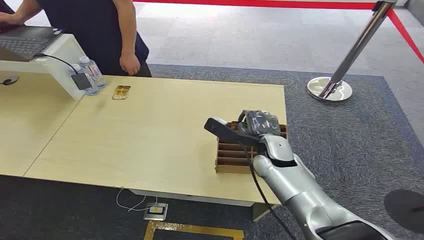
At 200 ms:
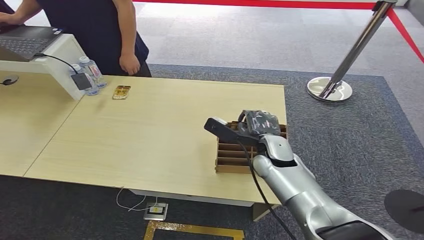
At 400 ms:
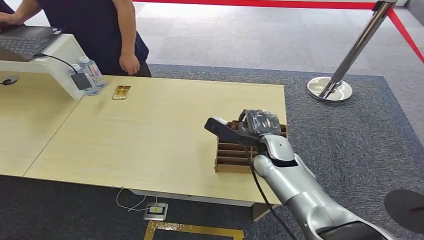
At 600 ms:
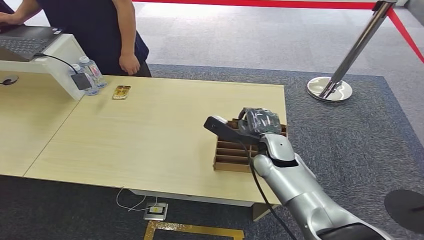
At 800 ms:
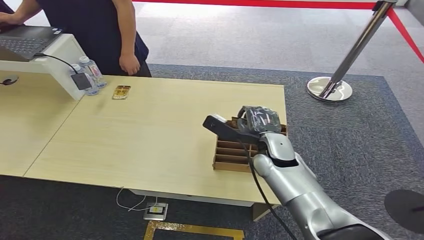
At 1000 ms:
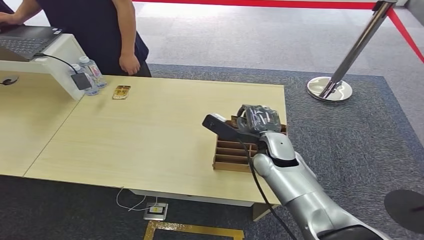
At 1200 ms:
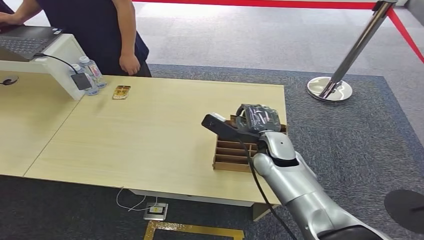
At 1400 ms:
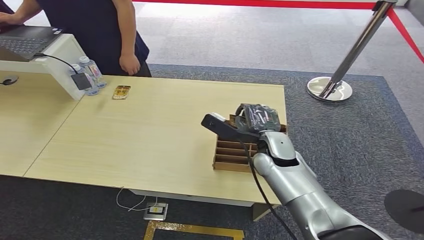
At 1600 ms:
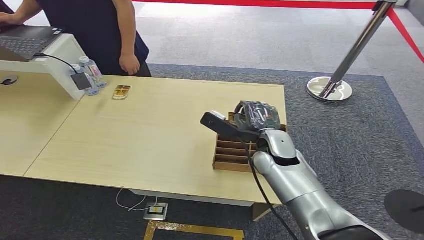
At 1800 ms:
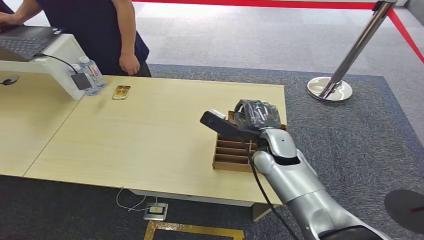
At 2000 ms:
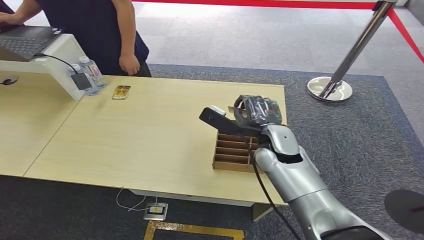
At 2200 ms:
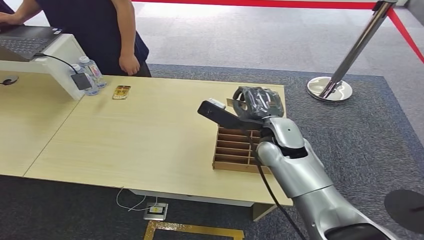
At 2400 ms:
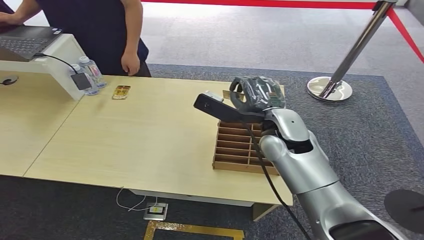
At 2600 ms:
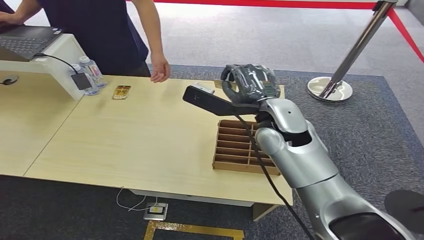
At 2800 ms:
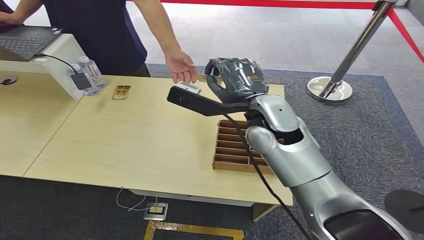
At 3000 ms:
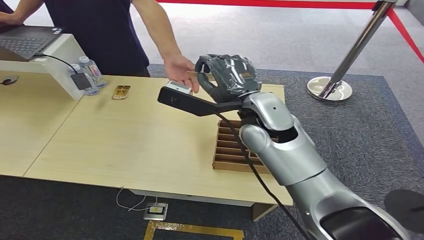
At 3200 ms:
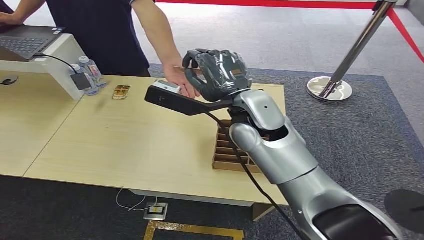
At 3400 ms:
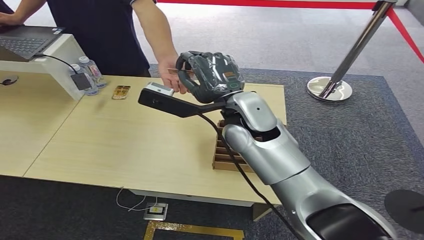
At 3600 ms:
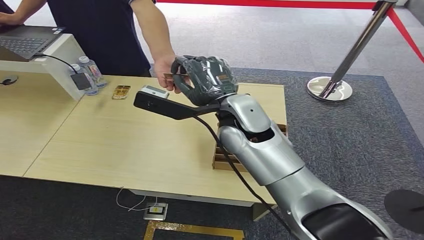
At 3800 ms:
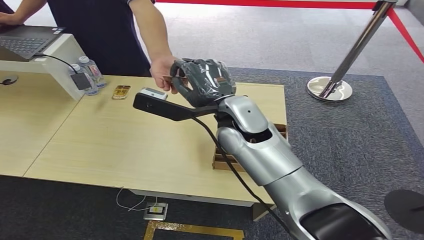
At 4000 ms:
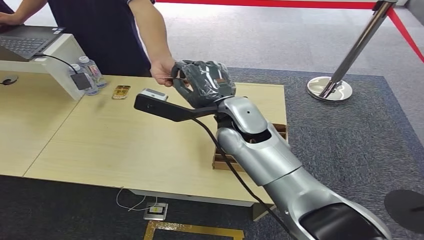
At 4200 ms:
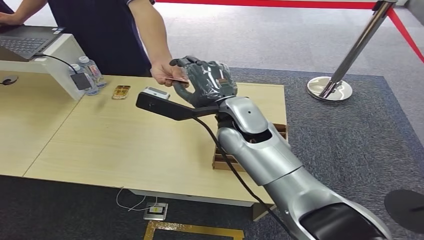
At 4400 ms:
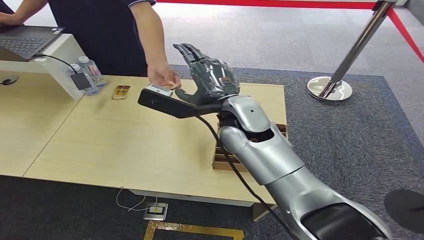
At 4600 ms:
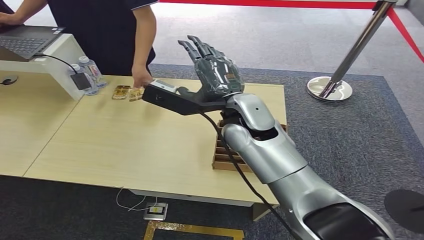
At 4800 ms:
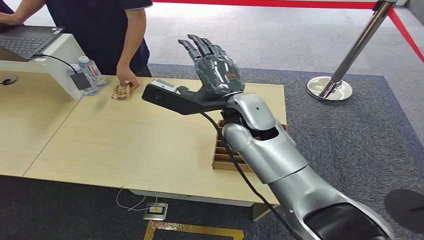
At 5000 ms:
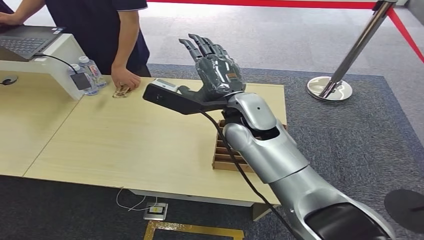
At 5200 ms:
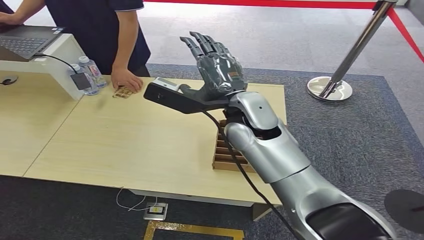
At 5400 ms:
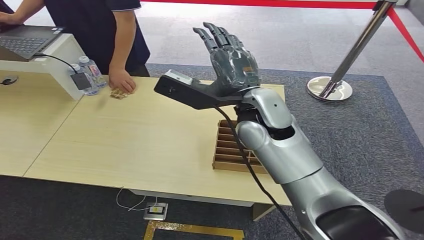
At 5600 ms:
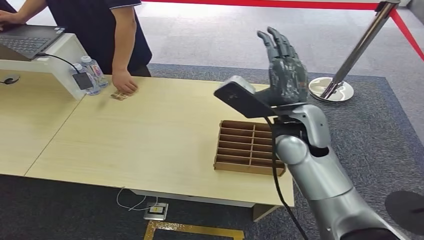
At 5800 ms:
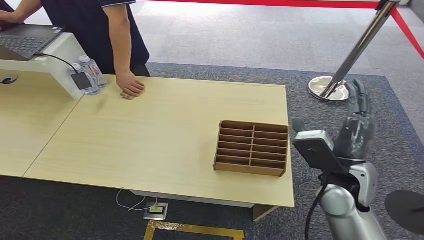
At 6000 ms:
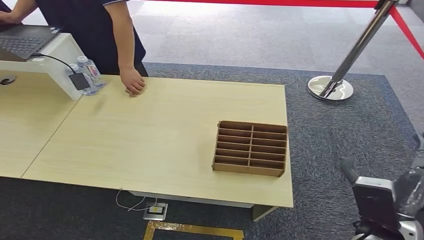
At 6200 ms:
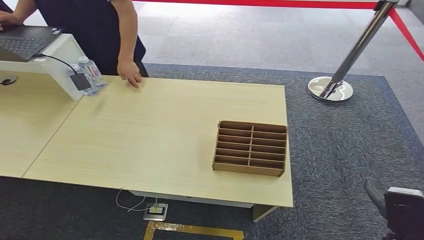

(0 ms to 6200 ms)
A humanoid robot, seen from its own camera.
Step, 0 ms - 2000 ms: Pick up the room card from the card holder.
Step, 2200 ms - 6200 ms: Hand the room card to the target.
1600 ms - 3200 ms: The right hand heads upward and to the left, covering about 15 cm.
3200 ms - 4600 ms: The hands move only a little.

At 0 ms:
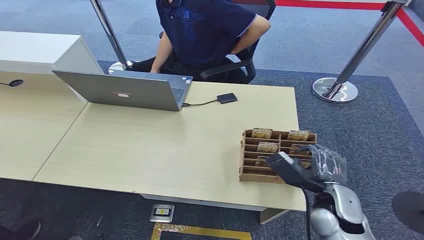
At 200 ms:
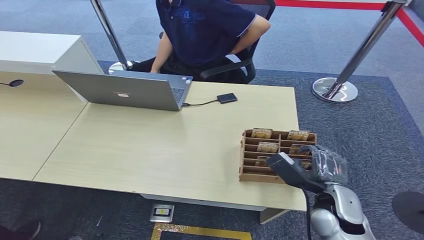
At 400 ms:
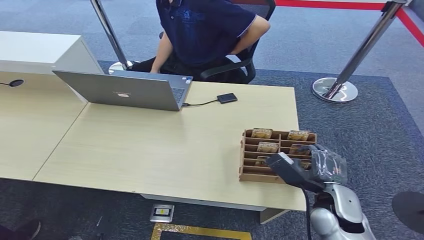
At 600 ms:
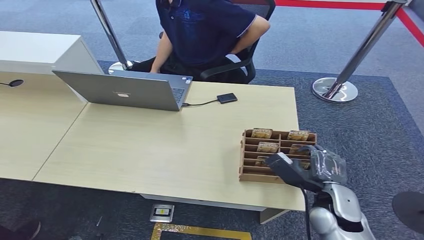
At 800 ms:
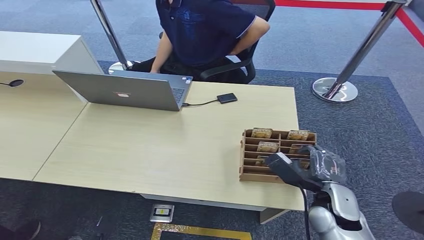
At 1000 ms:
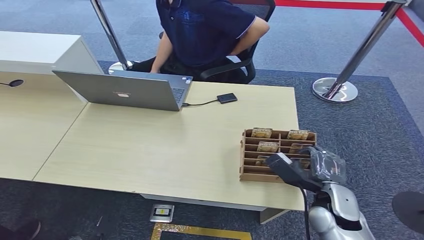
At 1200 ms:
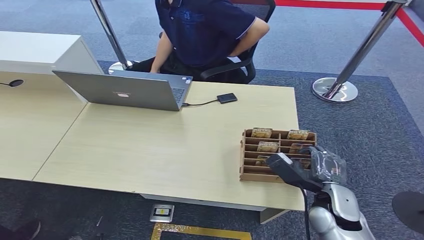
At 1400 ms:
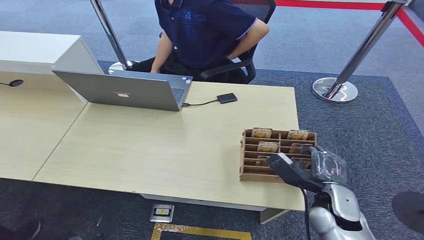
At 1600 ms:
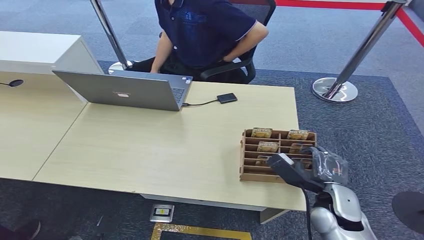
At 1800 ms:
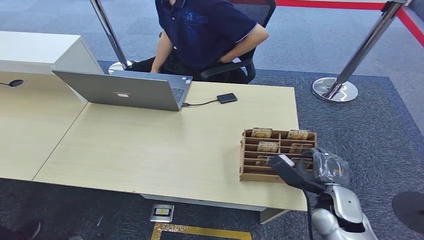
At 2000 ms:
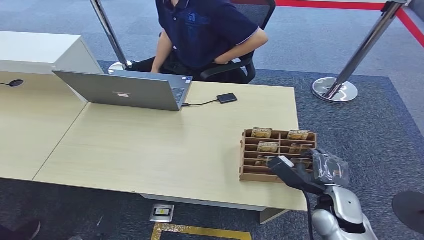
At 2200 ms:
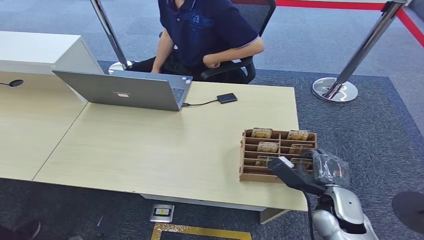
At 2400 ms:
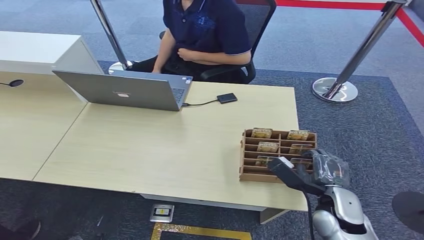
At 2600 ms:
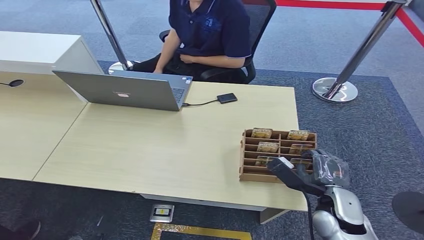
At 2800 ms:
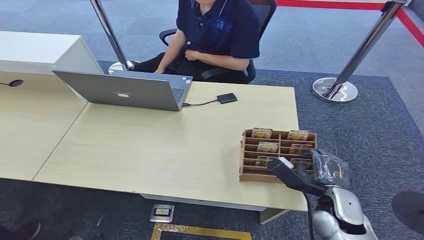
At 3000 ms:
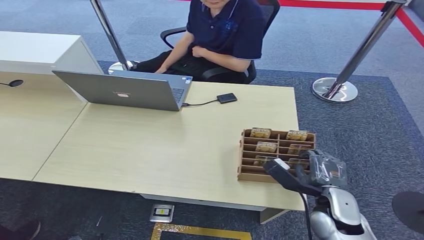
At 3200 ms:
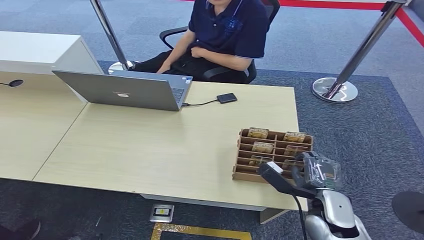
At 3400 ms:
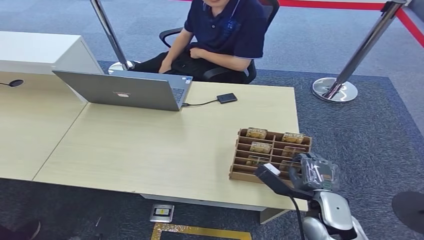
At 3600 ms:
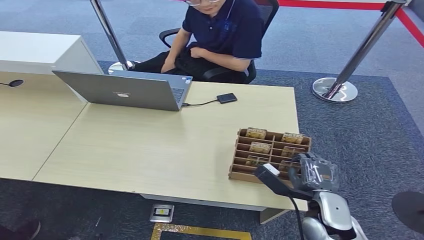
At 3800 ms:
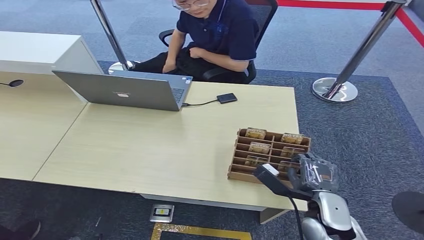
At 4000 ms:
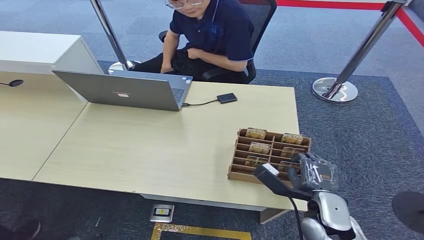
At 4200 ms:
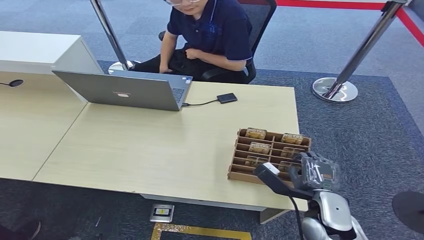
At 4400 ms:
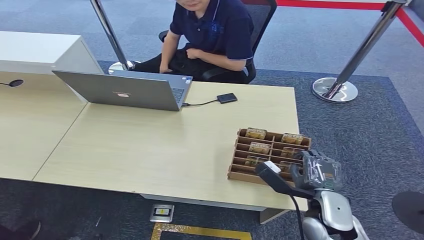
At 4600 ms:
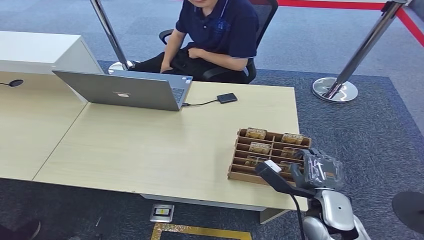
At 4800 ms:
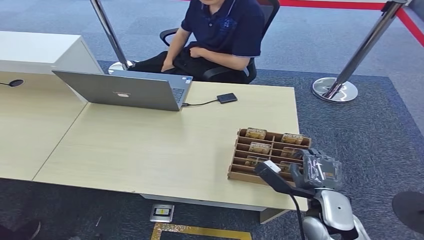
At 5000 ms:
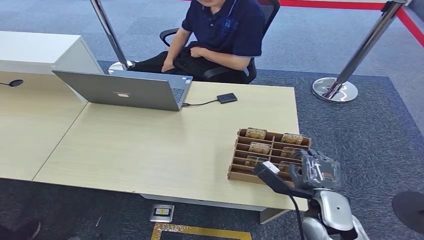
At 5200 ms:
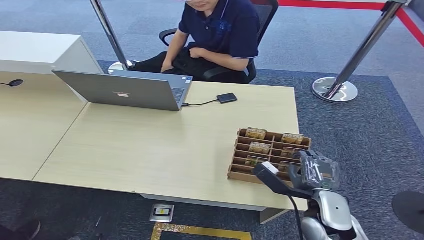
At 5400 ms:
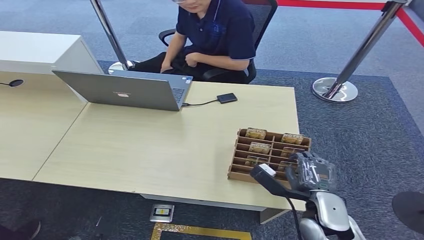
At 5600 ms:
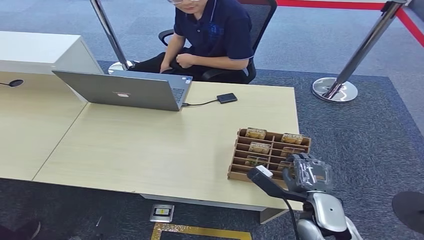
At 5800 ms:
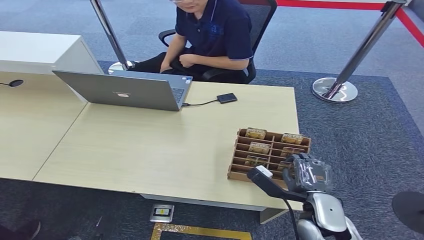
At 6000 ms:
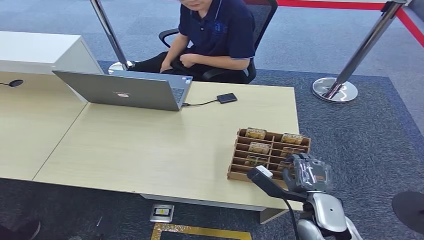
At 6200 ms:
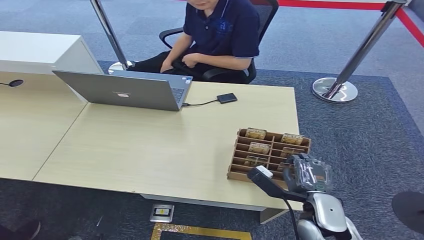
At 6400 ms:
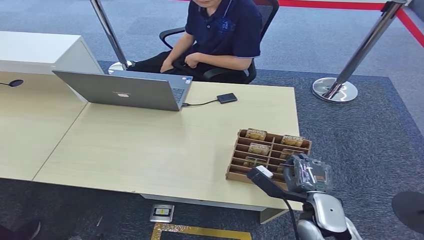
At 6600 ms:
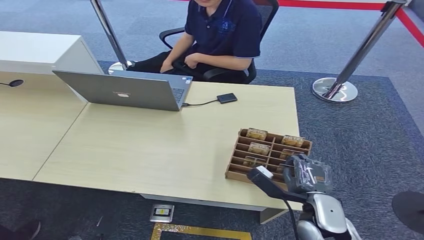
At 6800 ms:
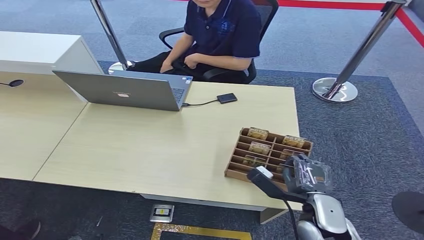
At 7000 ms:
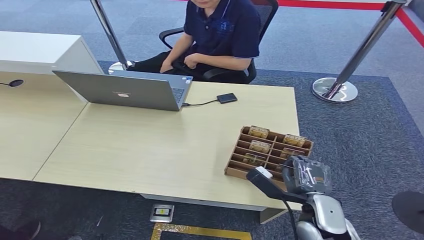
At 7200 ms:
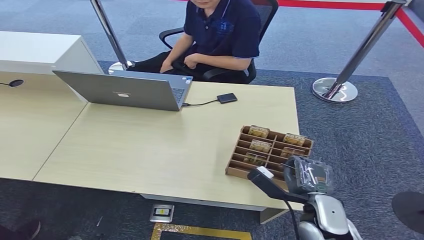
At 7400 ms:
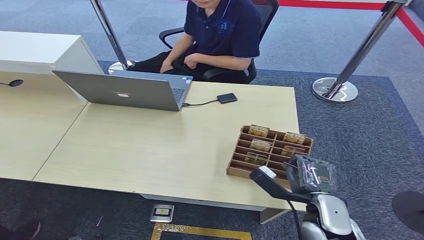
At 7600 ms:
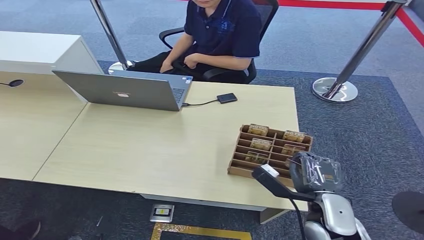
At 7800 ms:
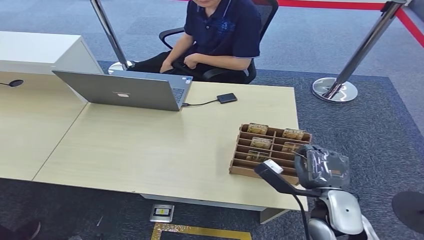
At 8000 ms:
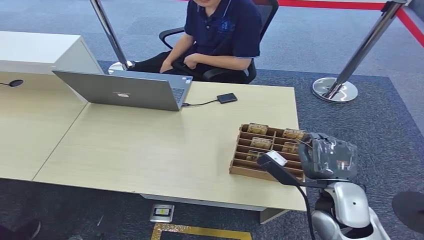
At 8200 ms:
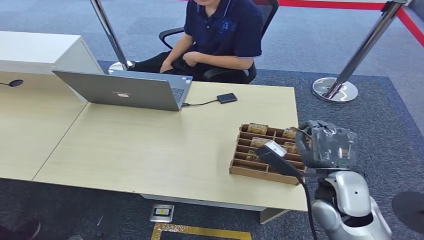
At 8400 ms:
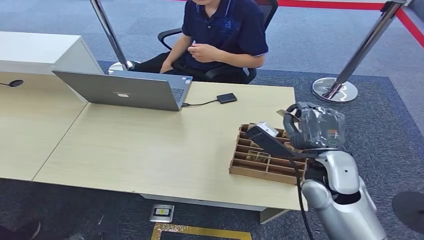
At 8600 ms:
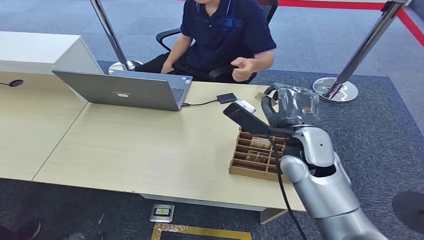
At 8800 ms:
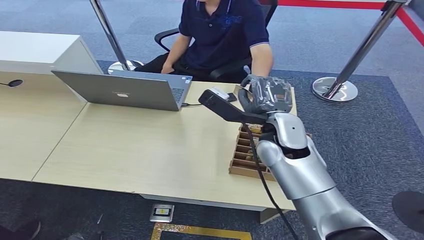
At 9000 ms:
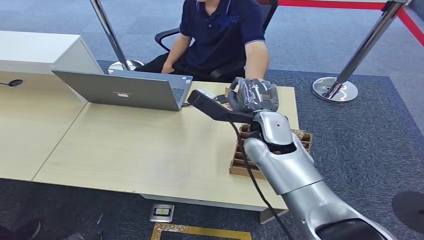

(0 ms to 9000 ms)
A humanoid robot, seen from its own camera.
Step, 0 ms - 8200 ms: Pick up the room card from the card holder.
Step, 8400 ms - 9000 ms: Hand the room card to the target.
1600 ms - 3000 ms: Neither hand changes place.
3000 ms - 4400 ms: The hands stay close to where they were, moving slightly.
4400 ms - 6000 ms: The two hands keep their place.
6000 ms - 7600 ms: The hands stay close to where they were, moving slightly.
7600 ms - 9000 ms: The right hand heads forward, upward and to the left, covering roughly 25 cm.
